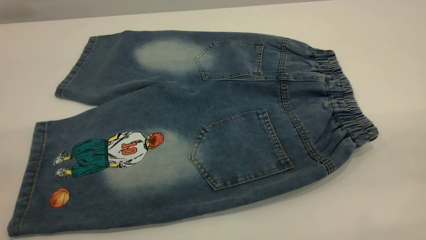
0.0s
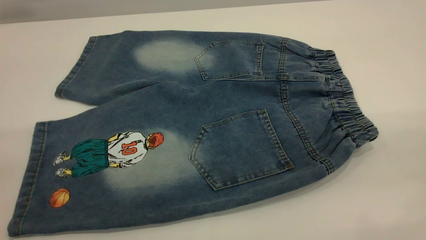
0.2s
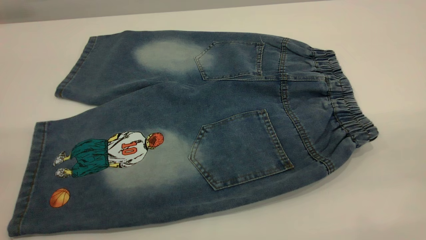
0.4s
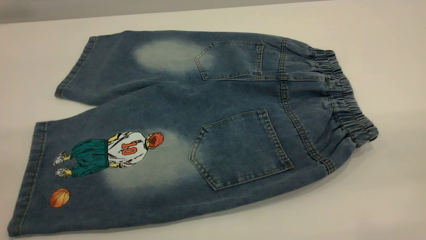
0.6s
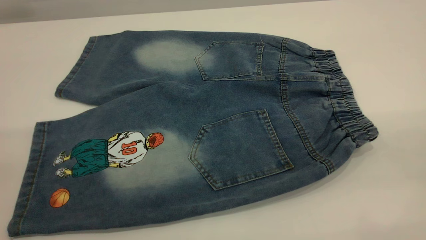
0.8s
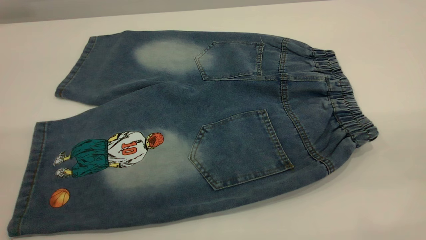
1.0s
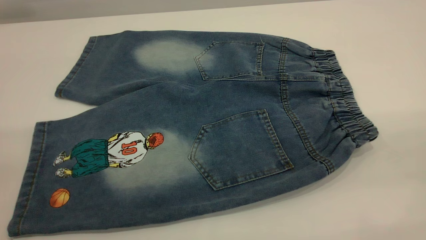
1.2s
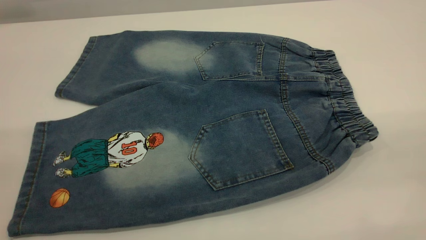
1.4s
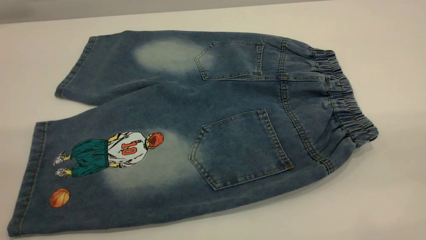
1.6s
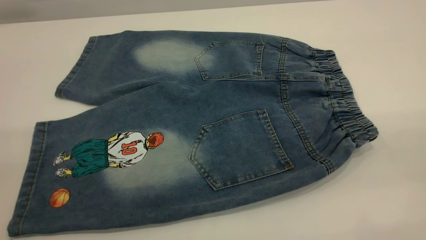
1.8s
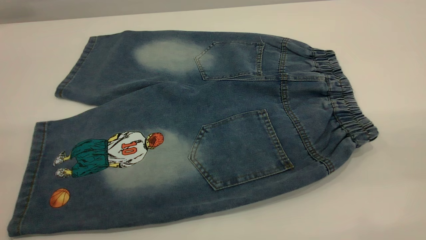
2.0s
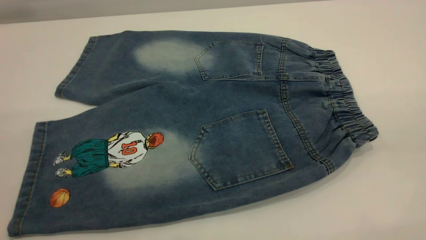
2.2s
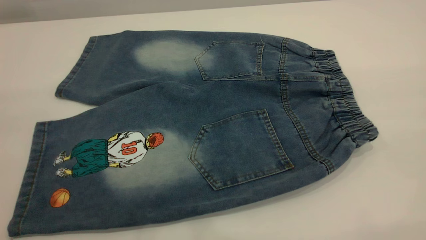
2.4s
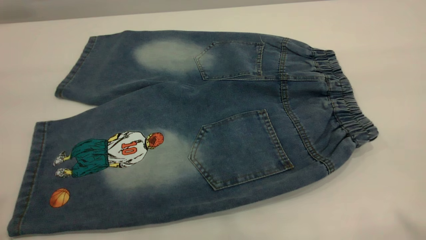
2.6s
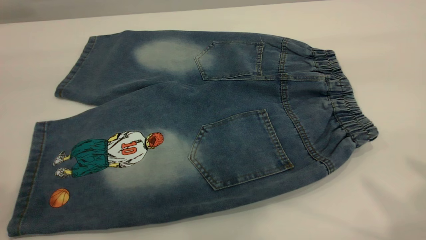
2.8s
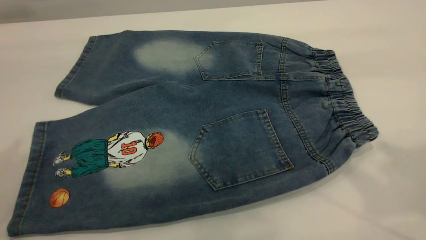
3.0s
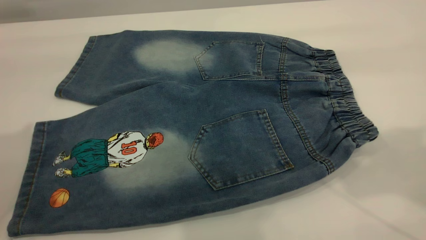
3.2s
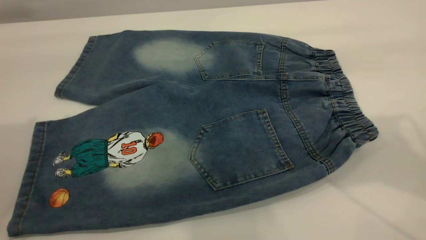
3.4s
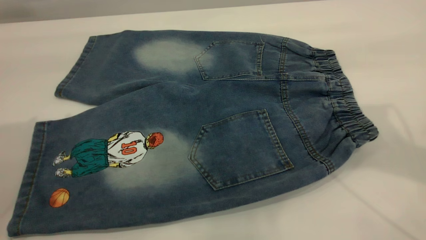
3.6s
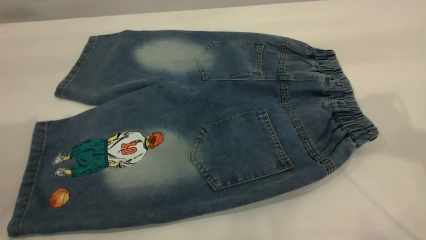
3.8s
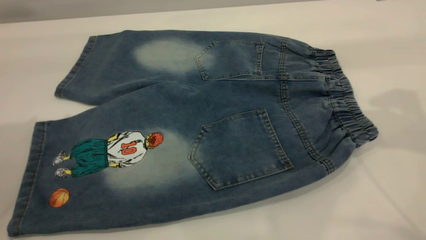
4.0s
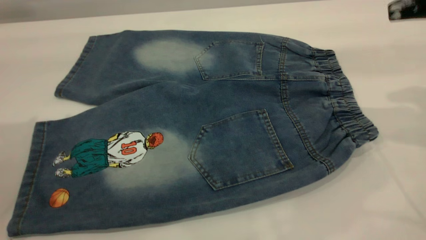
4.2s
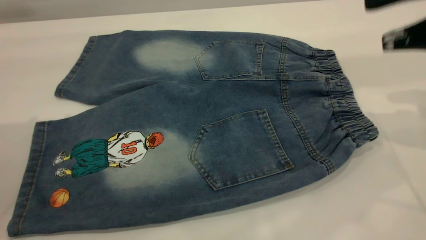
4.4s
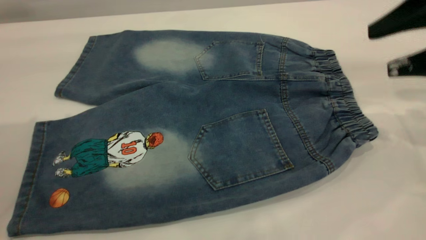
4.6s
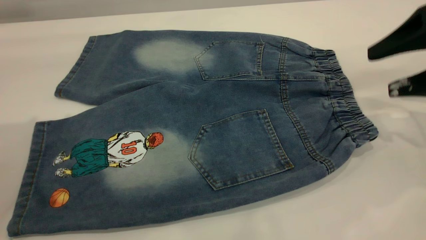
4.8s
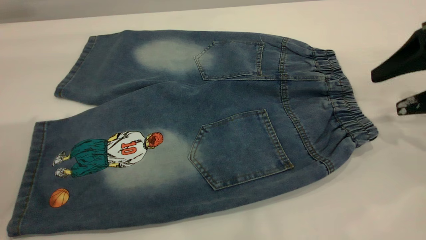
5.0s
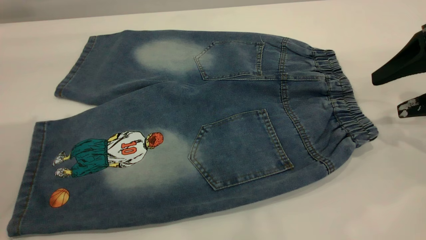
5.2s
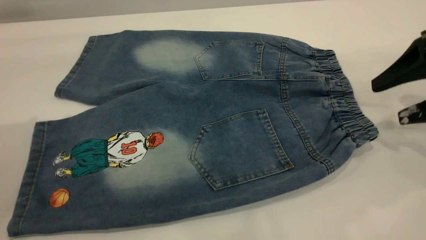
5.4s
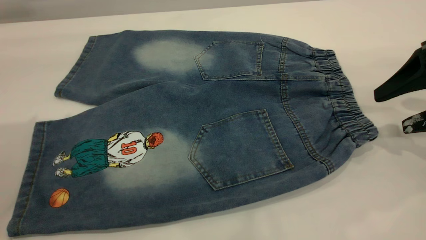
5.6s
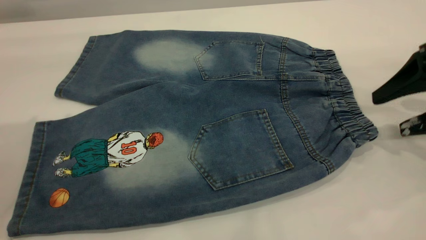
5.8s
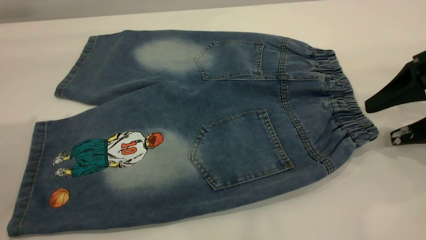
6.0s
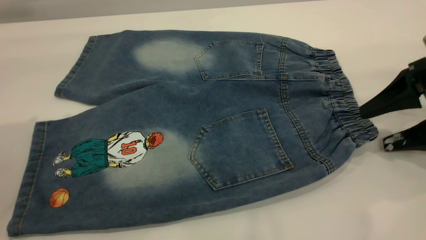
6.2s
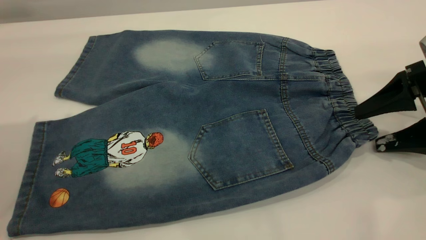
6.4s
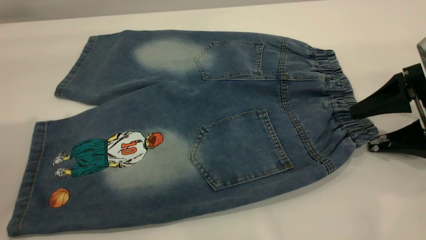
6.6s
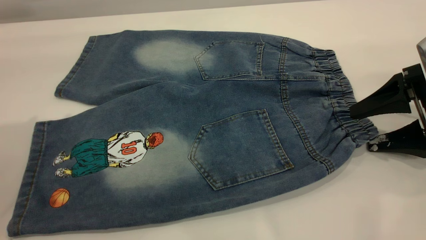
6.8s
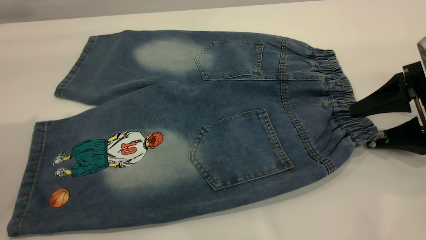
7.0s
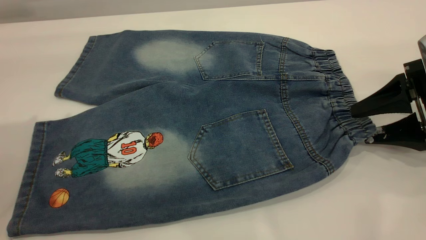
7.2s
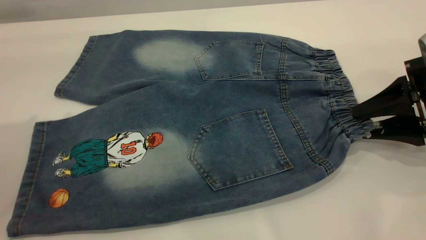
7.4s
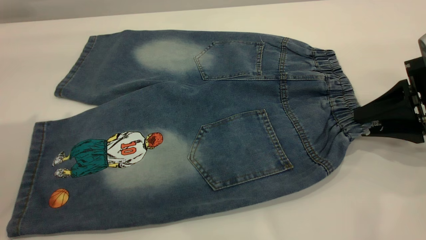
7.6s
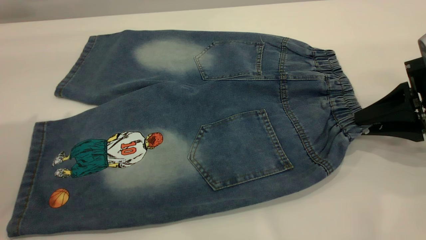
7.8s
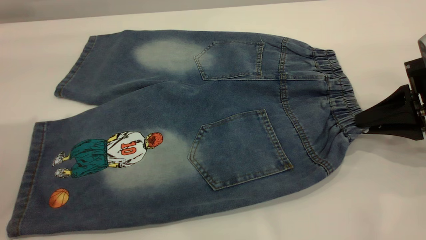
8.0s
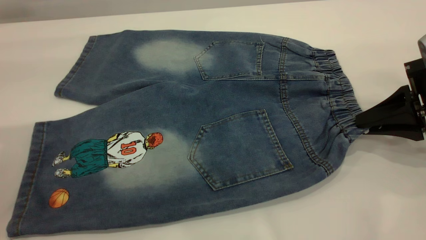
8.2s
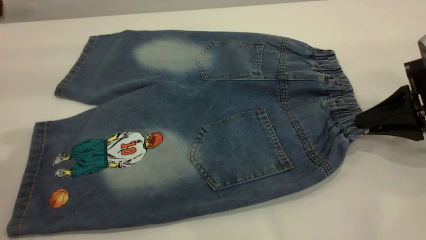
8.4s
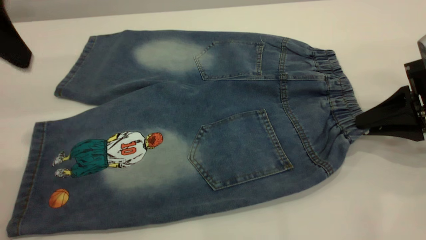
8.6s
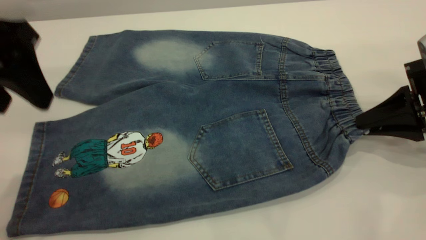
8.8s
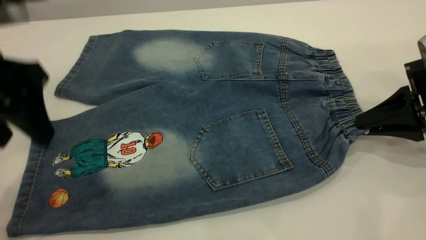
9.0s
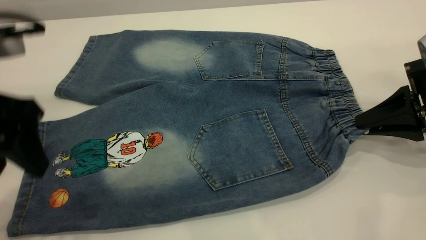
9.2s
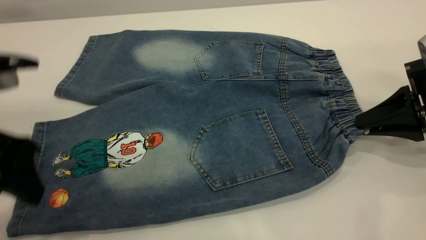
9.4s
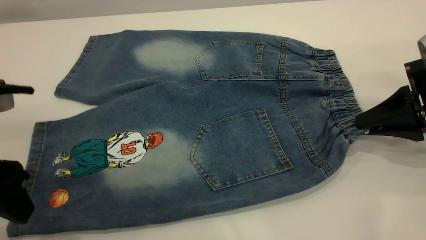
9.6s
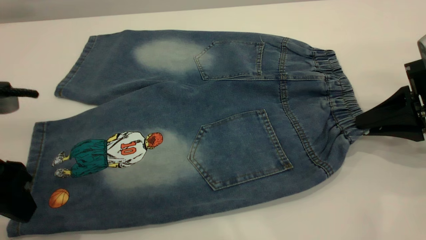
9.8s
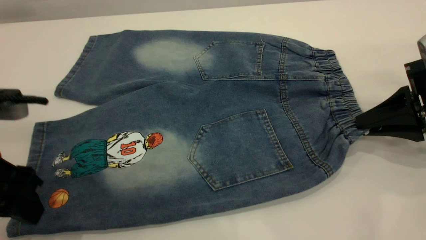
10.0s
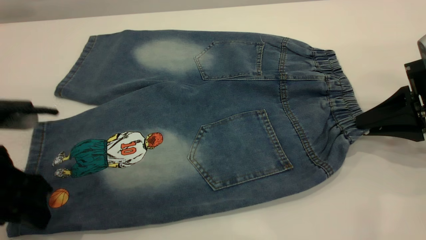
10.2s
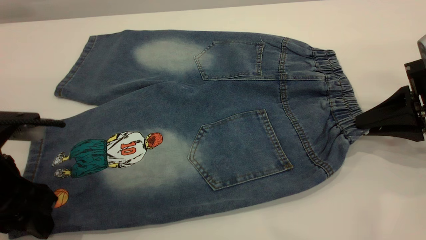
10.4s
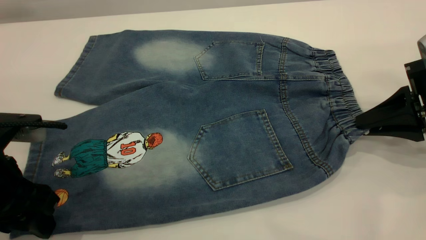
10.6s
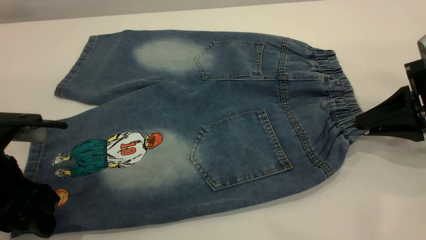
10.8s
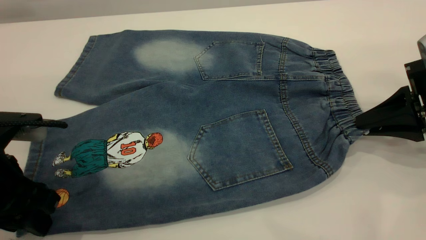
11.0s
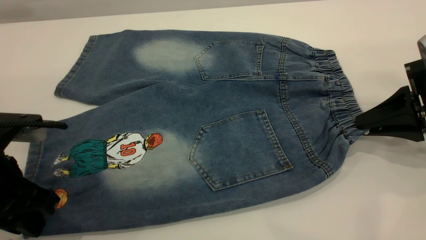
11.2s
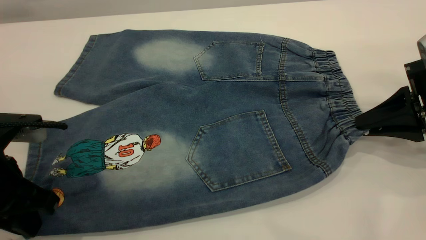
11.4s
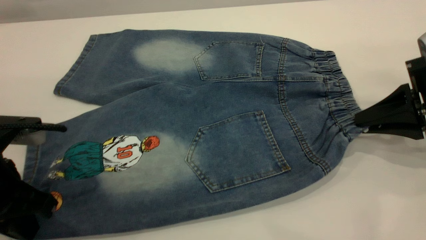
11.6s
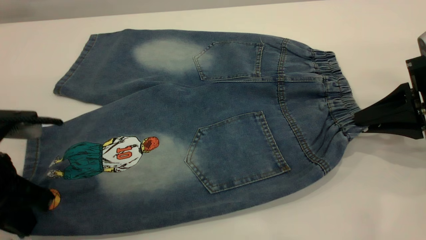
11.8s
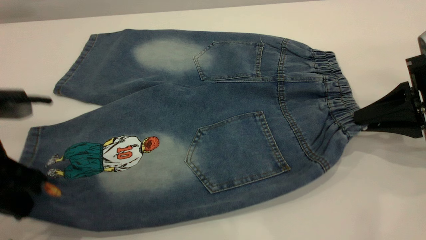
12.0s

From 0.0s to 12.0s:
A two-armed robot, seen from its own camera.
From 0.0s to 1.6s: The two grippers keep their place.
From 1.6s to 3.0s: The two grippers go roughly 20 cm forward.
From 3.0s to 4.4s: The left gripper shifts approximately 5 cm forward, while the right gripper shifts about 20 cm downward and forward.
From 4.4s to 6.0s: The right gripper moves downward, some 10 cm.
From 6.0s to 7.6s: The right gripper closes its fingers.
From 7.6s to 9.0s: The left gripper goes approximately 10 cm downward and to the right.
From 9.0s to 10.4s: The left gripper is displaced downward by about 10 cm.
From 10.4s to 12.0s: The left gripper closes up.

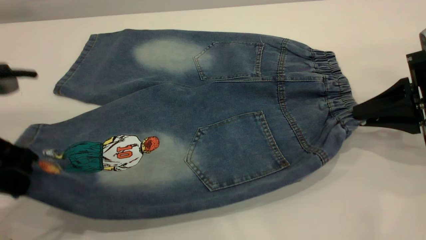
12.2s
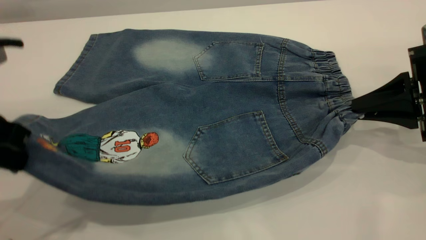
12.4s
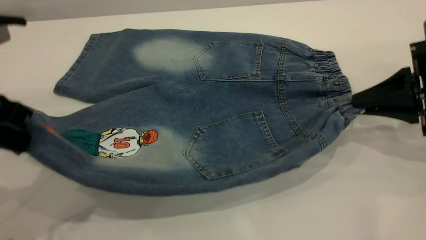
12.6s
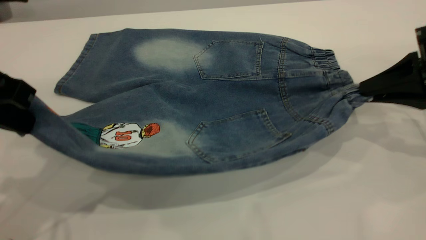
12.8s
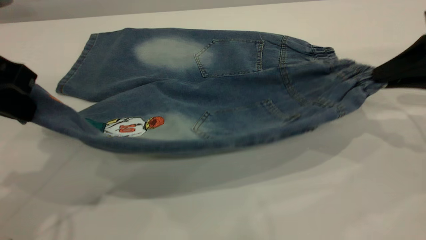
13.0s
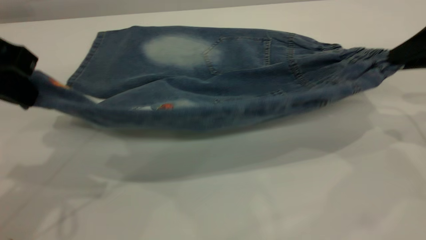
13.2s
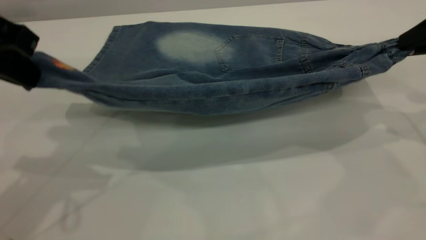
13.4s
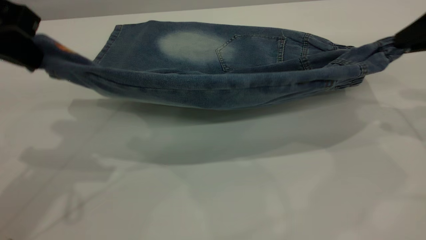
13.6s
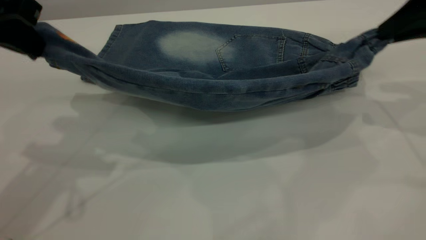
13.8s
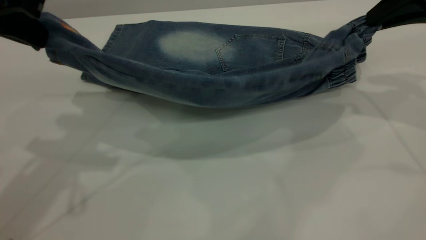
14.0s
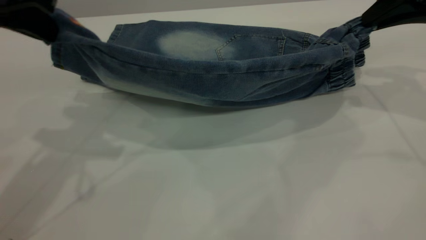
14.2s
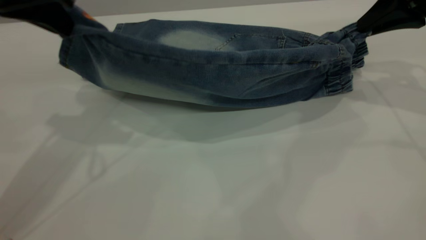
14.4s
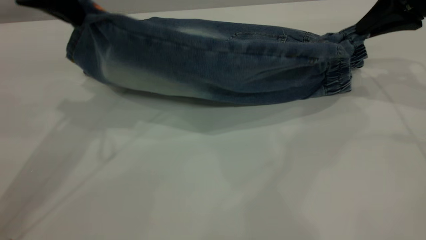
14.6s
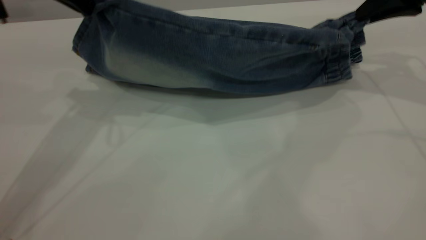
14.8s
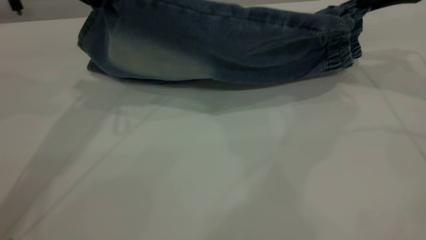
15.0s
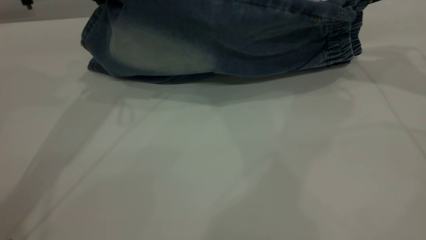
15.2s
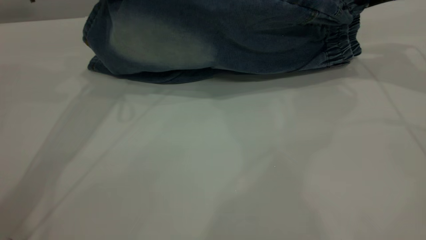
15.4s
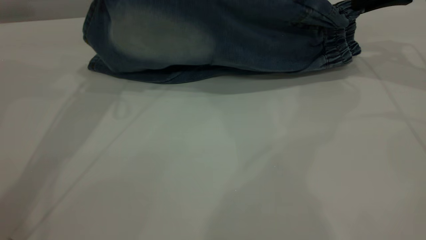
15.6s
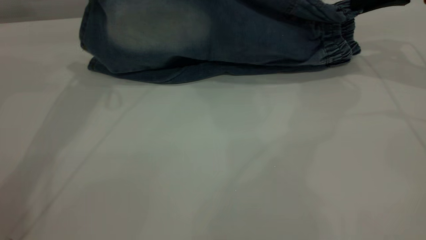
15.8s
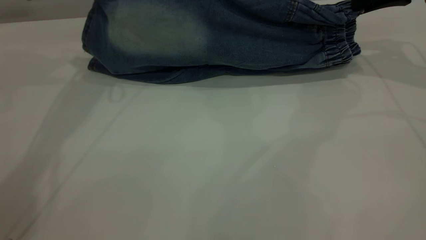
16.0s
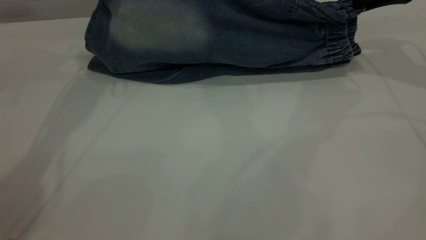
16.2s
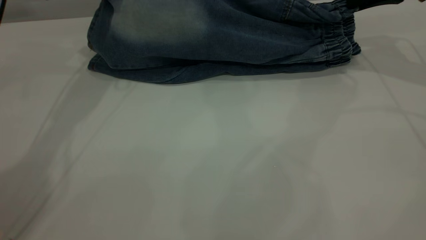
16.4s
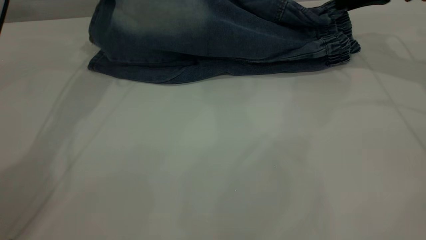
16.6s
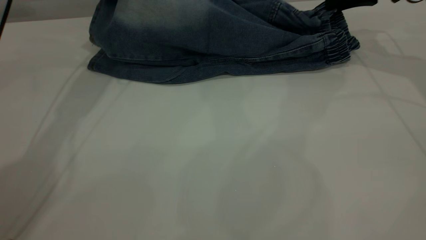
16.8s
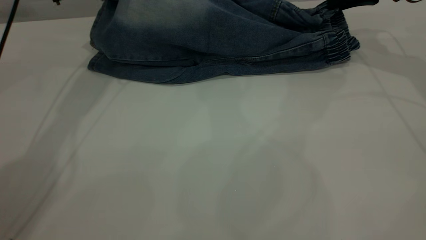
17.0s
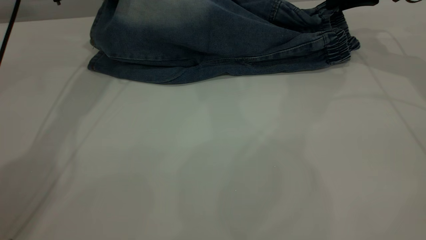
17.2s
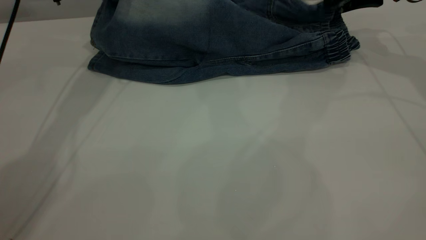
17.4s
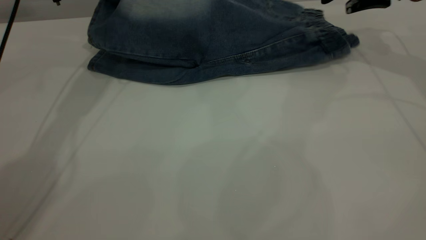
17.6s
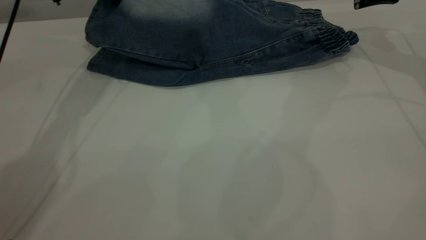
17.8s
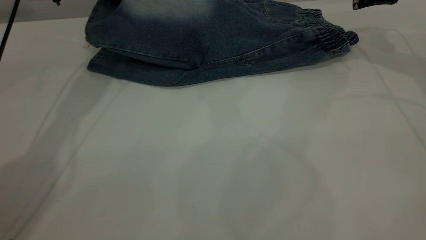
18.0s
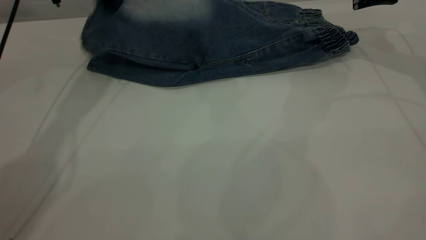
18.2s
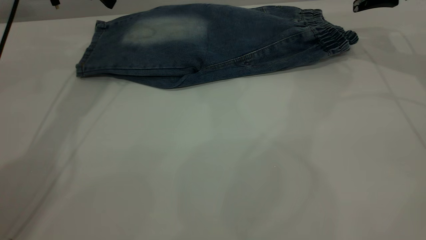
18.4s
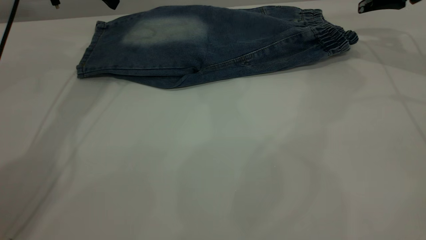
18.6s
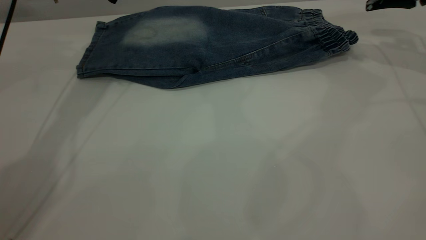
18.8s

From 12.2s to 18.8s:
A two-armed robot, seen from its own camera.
Step, from 12.2s to 18.4s: Fold the bottom of the pants upward.
From 12.2s to 13.8s: The left gripper travels upward and forward by roughly 10 cm. Meanwhile the right gripper is displaced upward by approximately 10 cm.
From 13.8s to 15.4s: The right gripper moves forward, about 10 cm; the left gripper shifts about 15 cm forward.
From 15.4s to 17.2s: The right gripper heads forward, covering roughly 5 cm; the left gripper travels forward by approximately 10 cm.
From 17.2s to 18.8s: The left gripper opens up; the right gripper goes approximately 5 cm to the right, and opens its fingers.
